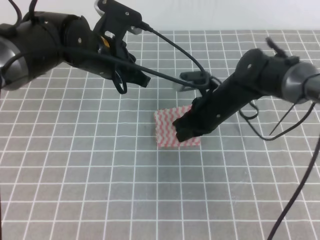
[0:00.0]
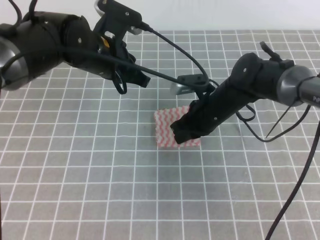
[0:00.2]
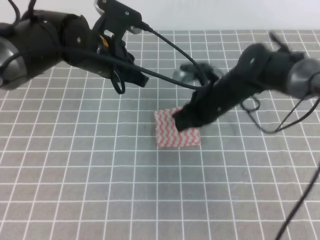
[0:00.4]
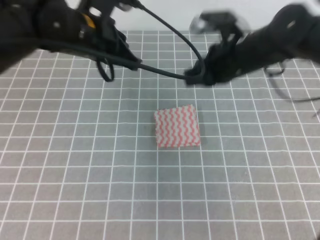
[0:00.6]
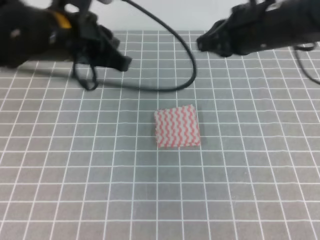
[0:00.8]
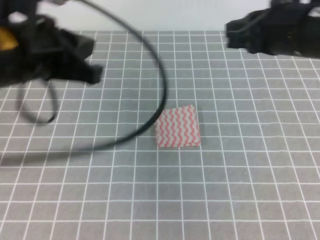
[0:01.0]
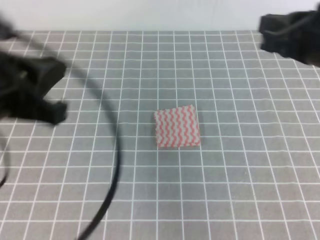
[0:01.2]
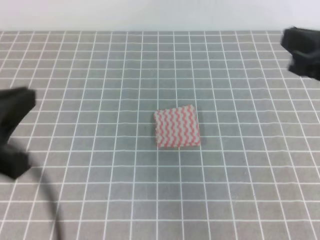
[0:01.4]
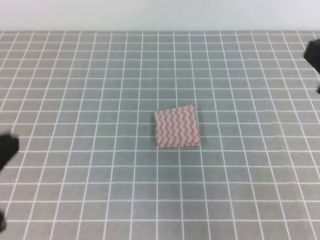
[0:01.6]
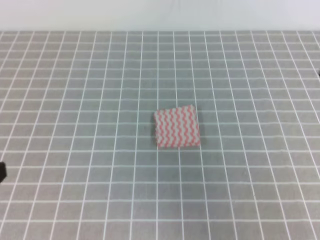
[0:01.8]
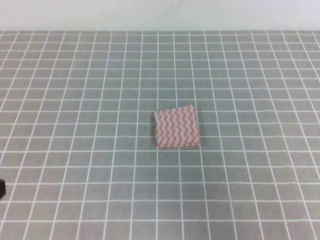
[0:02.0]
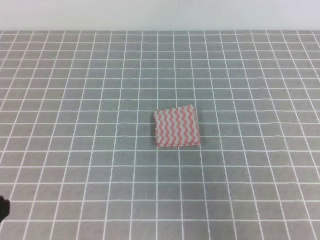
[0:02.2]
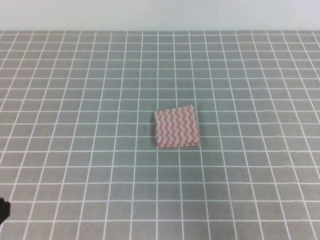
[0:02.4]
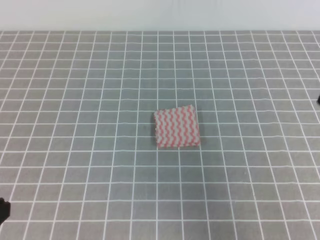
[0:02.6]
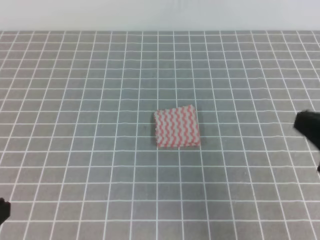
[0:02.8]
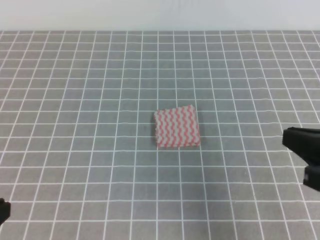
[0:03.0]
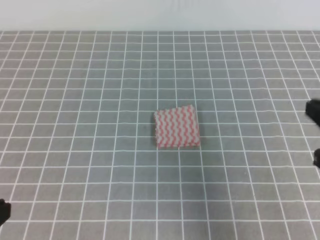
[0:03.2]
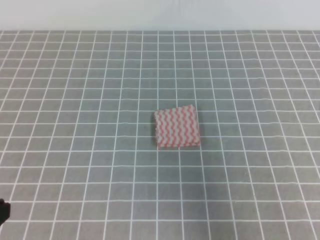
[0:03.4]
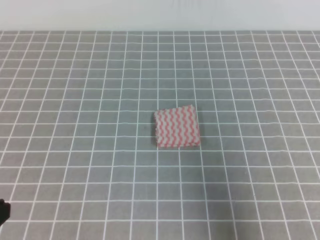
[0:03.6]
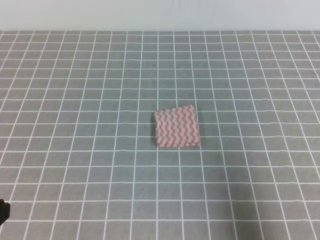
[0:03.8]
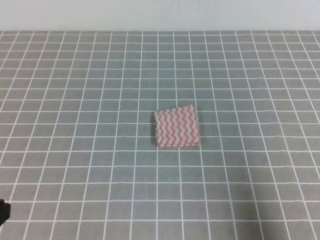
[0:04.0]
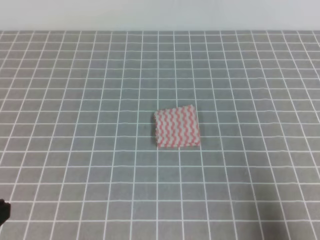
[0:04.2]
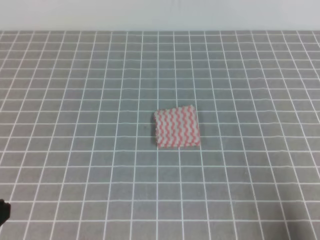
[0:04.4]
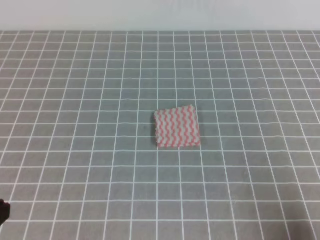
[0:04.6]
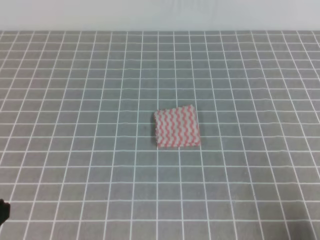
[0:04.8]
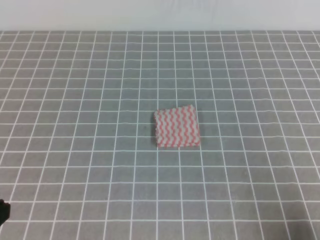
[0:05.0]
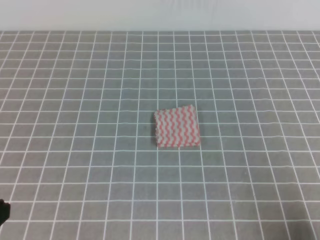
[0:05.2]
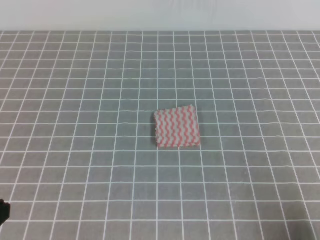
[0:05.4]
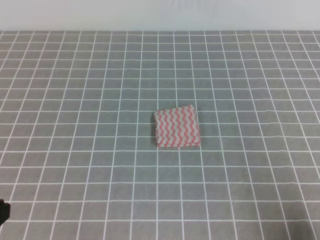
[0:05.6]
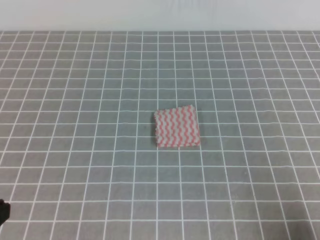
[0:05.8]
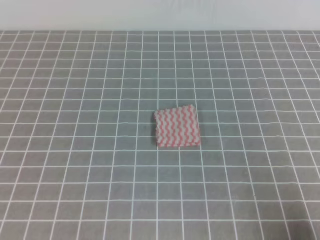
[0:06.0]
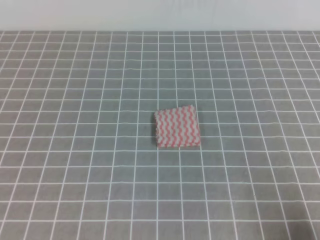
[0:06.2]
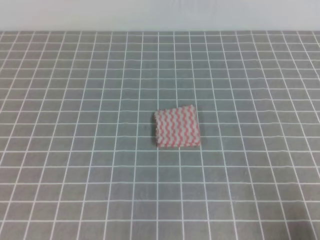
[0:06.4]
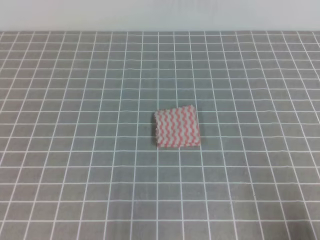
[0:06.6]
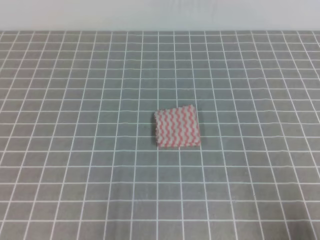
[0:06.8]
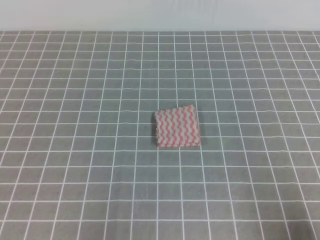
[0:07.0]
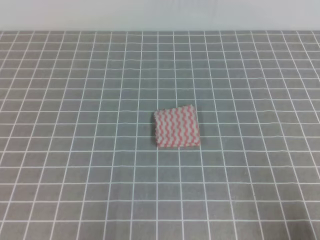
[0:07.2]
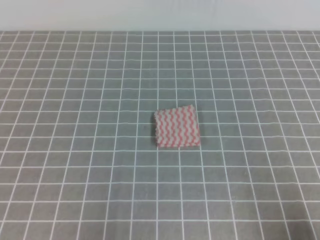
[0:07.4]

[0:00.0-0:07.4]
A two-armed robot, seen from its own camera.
0:00.0 to 0:01.4: The left gripper goes some 25 cm backward and to the left; the right gripper travels upward, backward and to the right by some 30 cm.
0:01.4 to 0:03.0: The grippers both shift backward and downward by some 10 cm.
0:03.0 to 0:04.4: The right gripper moves downward, backward and to the right, some 15 cm.
